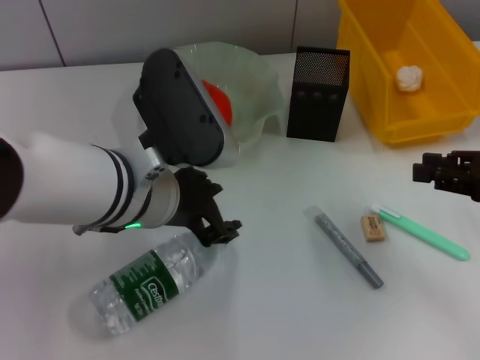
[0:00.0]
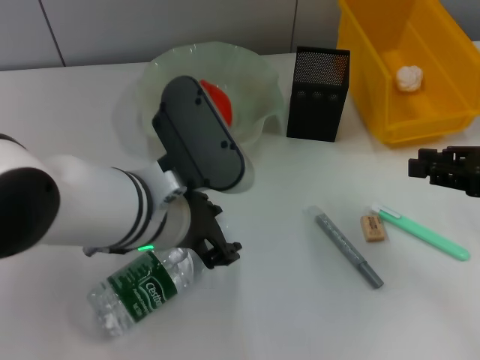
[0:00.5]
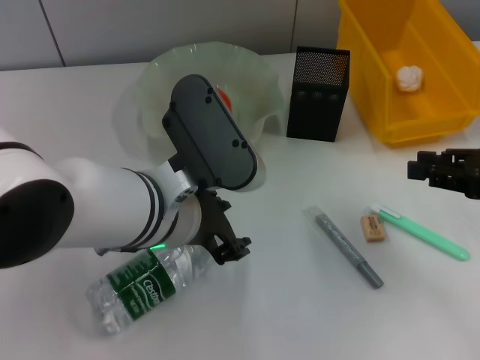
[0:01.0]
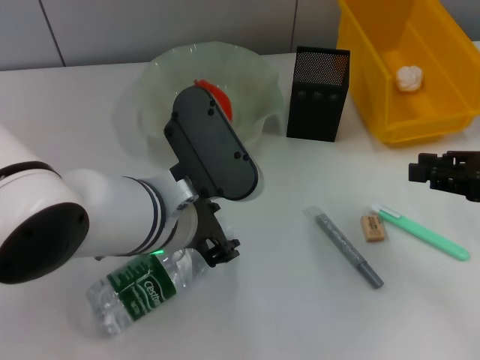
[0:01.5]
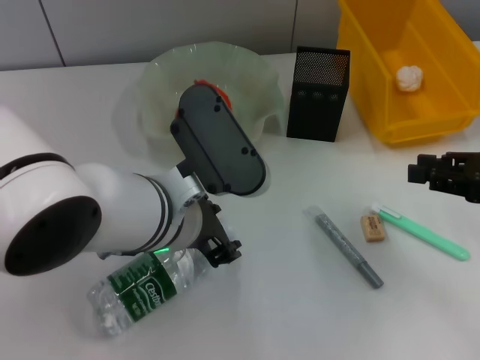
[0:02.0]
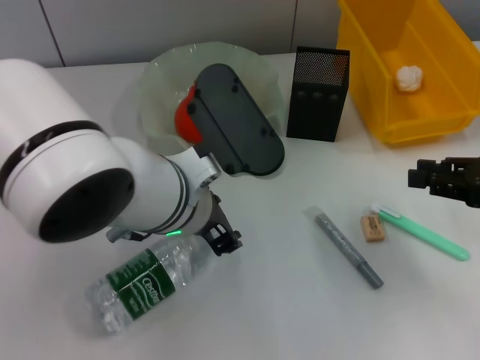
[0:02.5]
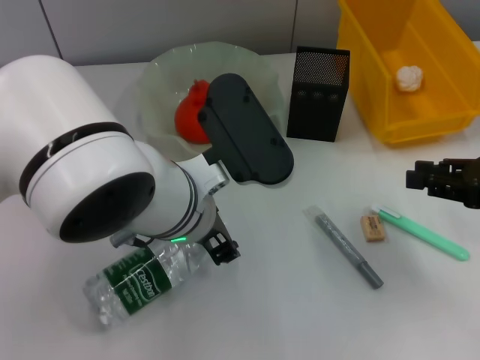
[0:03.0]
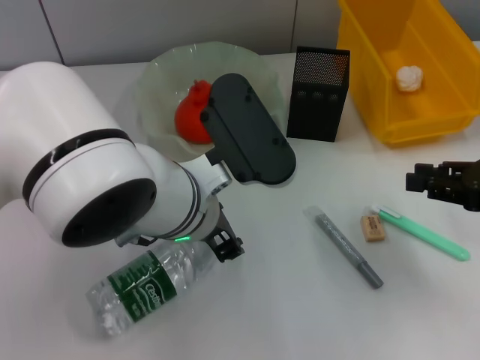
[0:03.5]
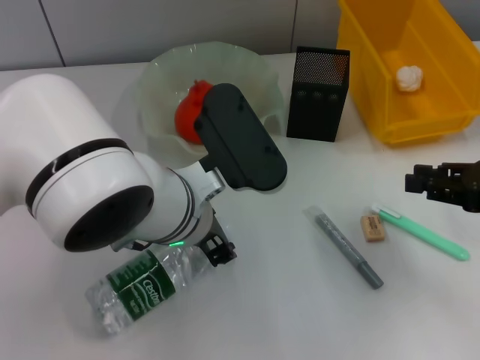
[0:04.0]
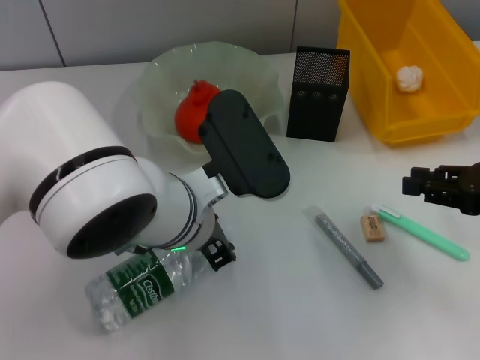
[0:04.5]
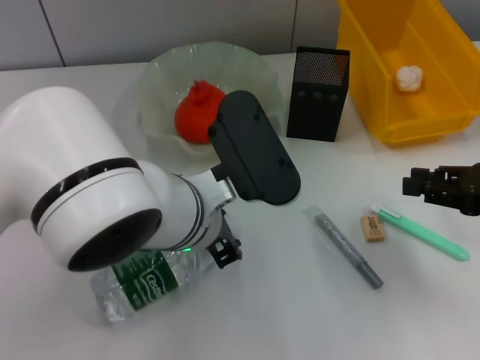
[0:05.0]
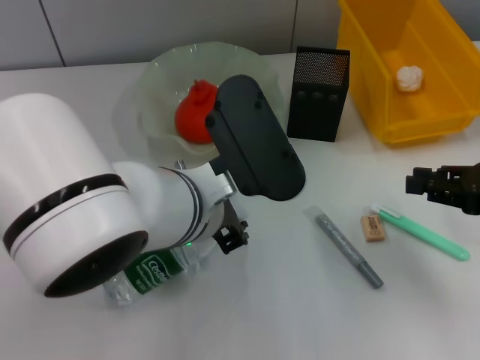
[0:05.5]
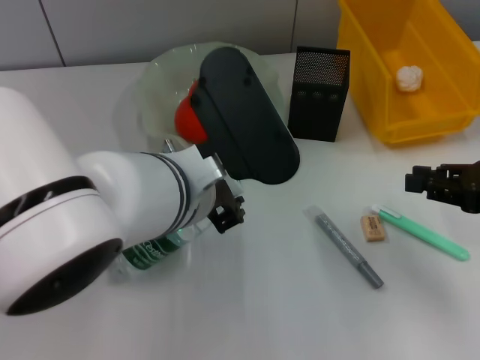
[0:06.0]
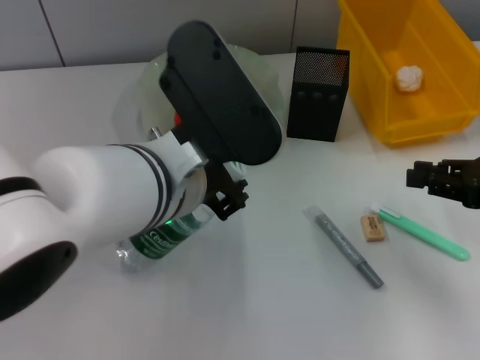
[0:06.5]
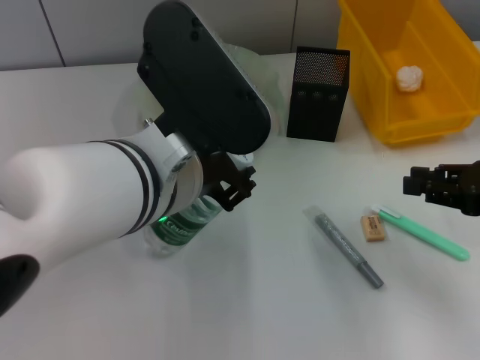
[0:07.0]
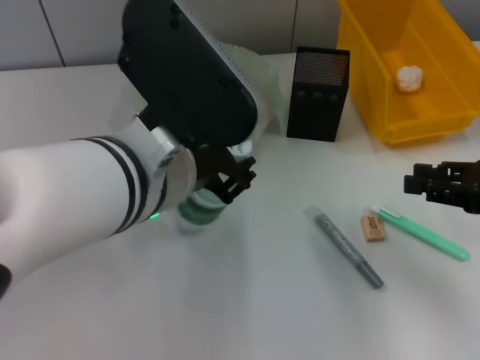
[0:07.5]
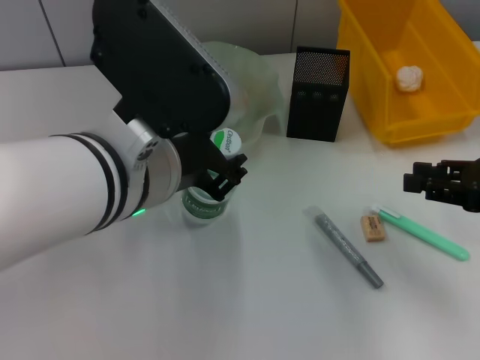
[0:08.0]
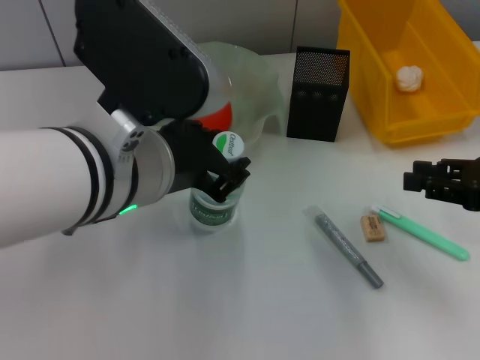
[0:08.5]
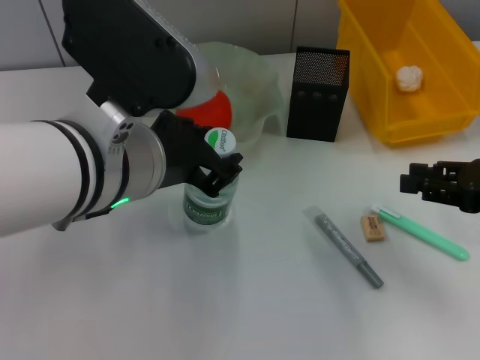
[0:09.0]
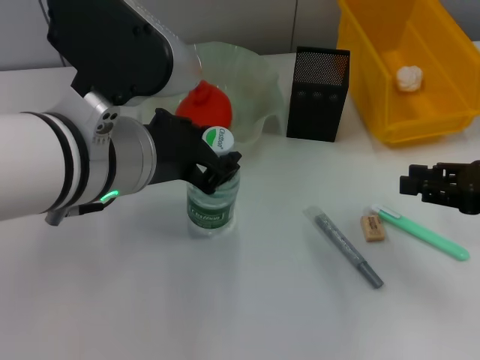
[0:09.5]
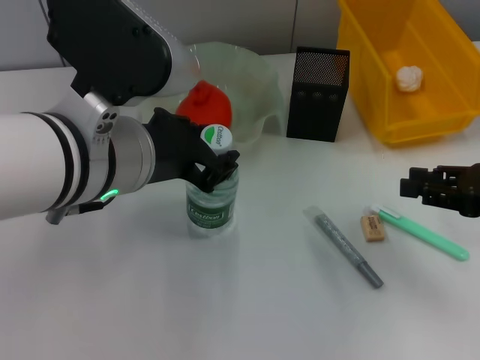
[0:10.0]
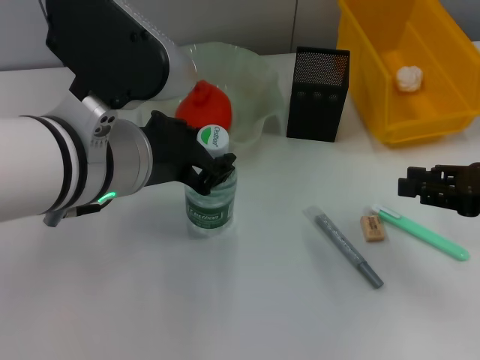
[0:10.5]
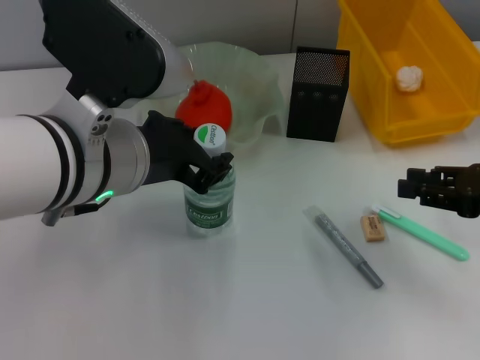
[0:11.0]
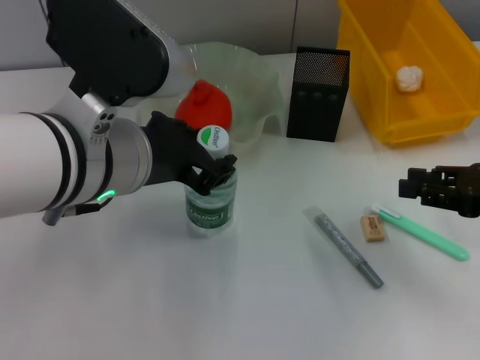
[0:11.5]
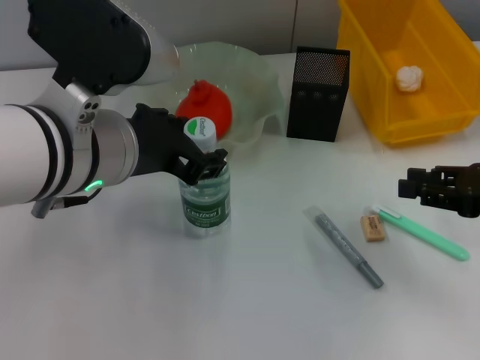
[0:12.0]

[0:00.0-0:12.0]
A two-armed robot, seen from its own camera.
Step, 0:00.0 to 0:04.5: Grab the water bottle with the left hand.
0:00.0 to 0:04.0: The grippers stay close to where they were, moving slightly.
0:06.0 to 0:08.0: The left gripper ends up approximately 5 cm from where it was.
0:08.0 to 0:10.0: There are only small adjustments of the grippers.
0:10.0 to 0:12.0: Neither gripper changes place.

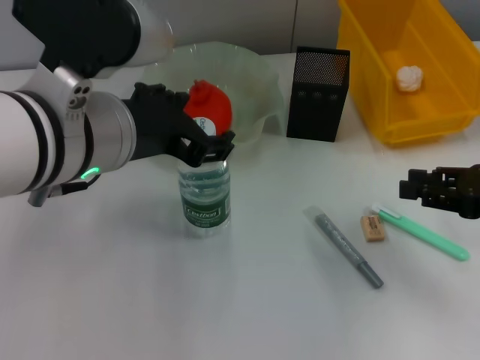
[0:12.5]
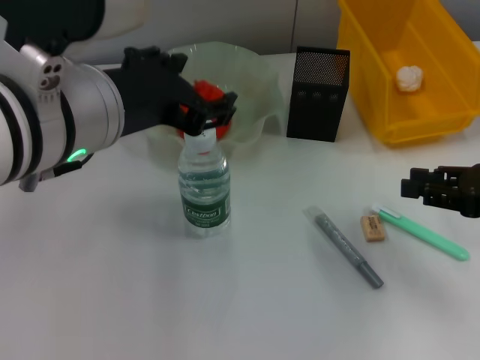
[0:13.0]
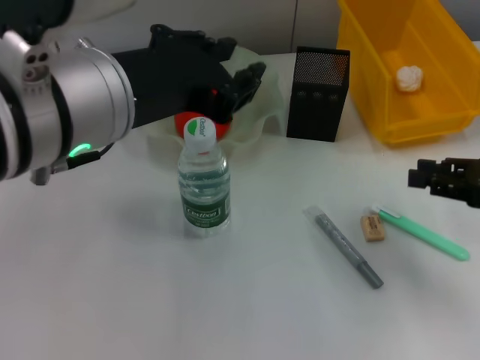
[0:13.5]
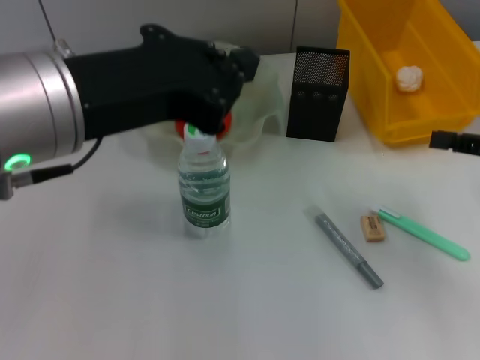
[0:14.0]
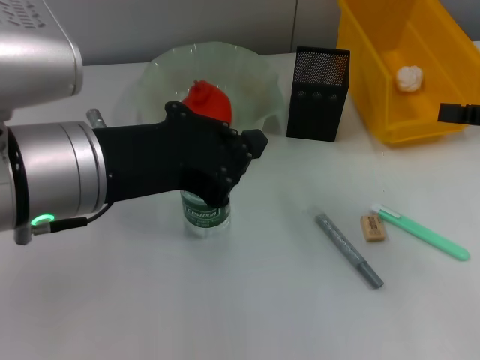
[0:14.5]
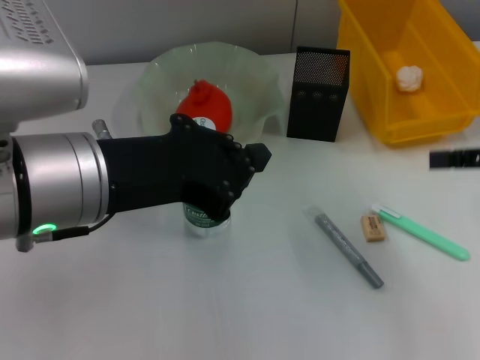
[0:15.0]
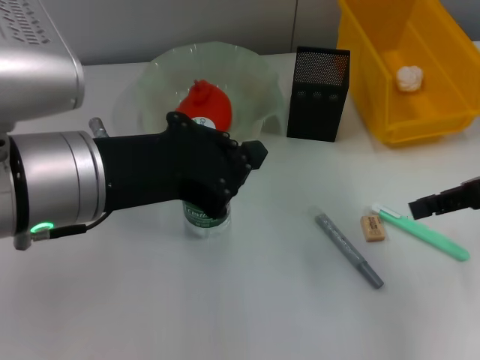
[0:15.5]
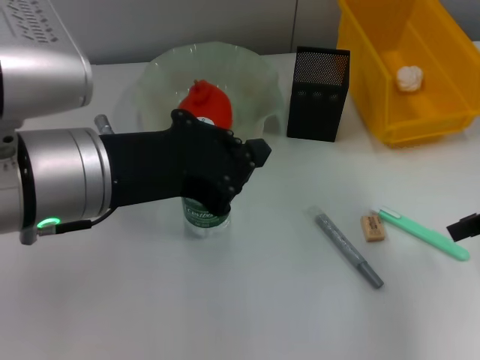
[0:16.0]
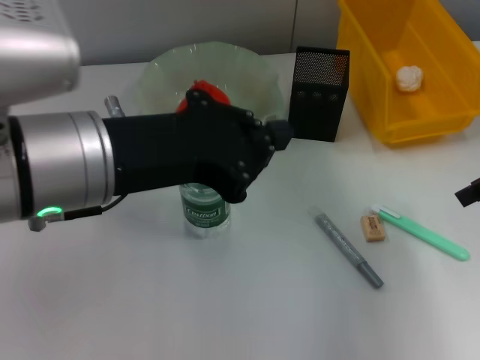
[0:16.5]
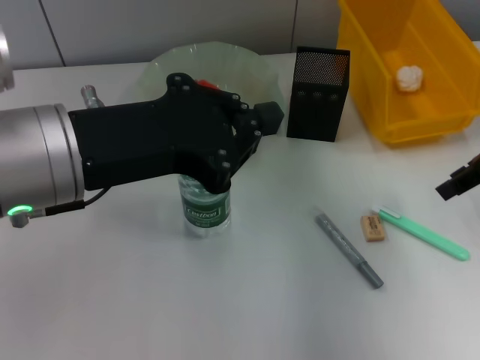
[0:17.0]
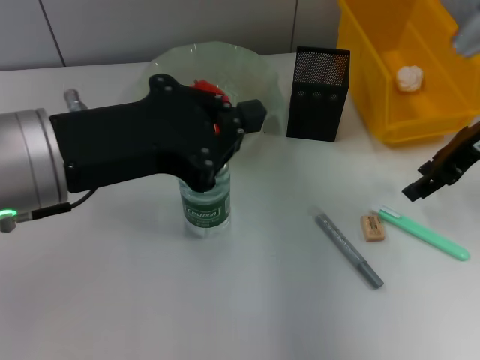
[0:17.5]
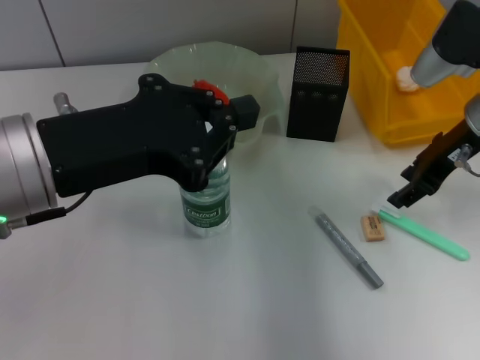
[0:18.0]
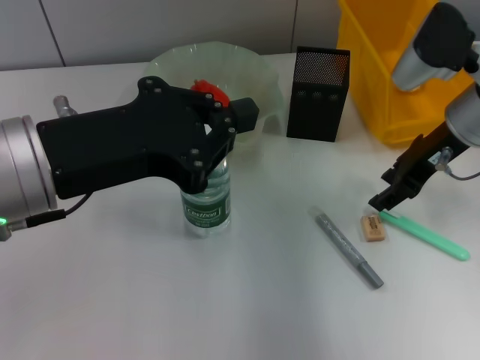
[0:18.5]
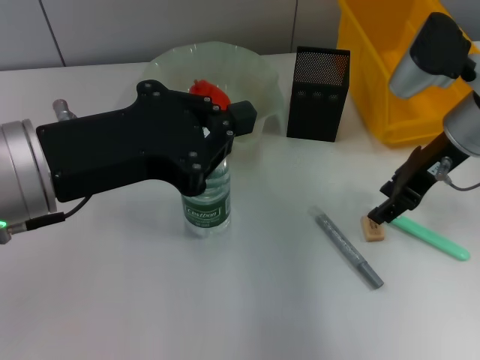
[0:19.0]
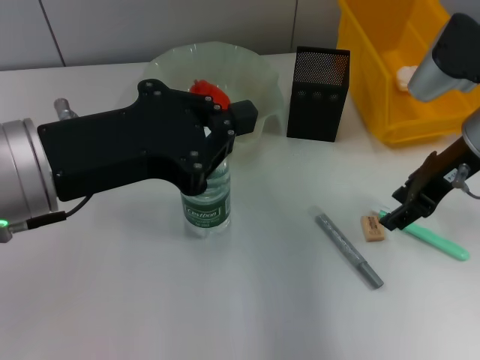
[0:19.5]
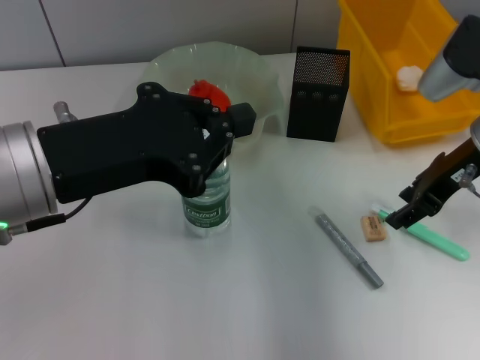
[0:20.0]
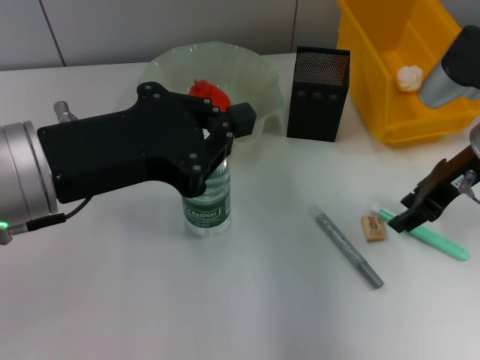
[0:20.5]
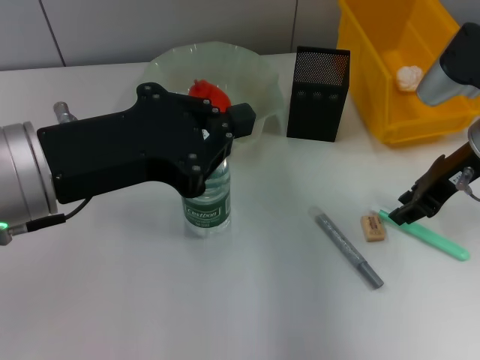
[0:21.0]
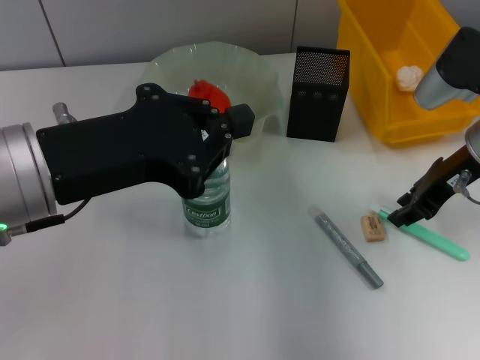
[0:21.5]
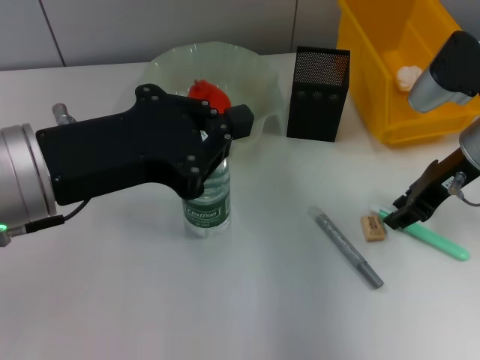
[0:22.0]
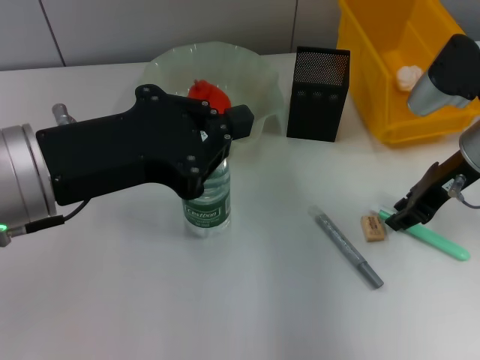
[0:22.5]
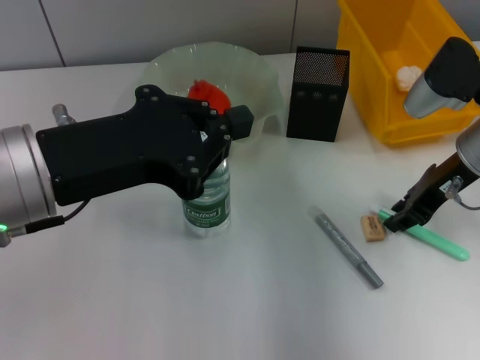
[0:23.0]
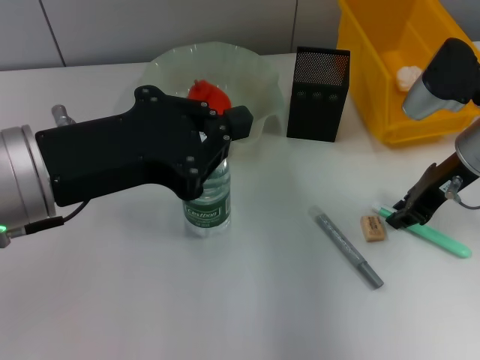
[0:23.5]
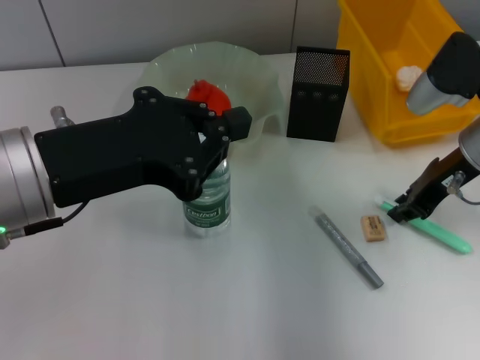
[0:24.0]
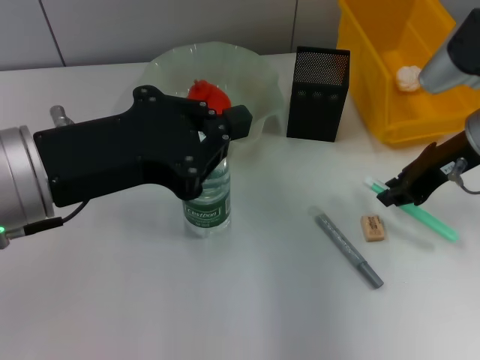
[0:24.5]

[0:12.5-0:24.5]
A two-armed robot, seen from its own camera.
Step, 0:12.5 to 0:23.0: Grab the blue utility knife with the right hand.
0:12.5 to 0:14.5: The left gripper closes up. Meanwhile the right gripper moves upward, about 5 cm.
0:14.5 to 0:16.5: The right gripper moves some 5 cm.
0:16.5 to 0:18.5: The right gripper travels to the left and forward by some 10 cm.
0:18.5 to 0:20.5: The grippers move only a little.
0:20.5 to 0:22.5: The two grippers keep their place.
0:22.5 to 0:24.5: The grippers move only a little.

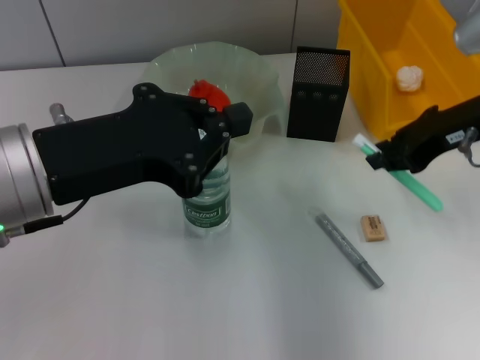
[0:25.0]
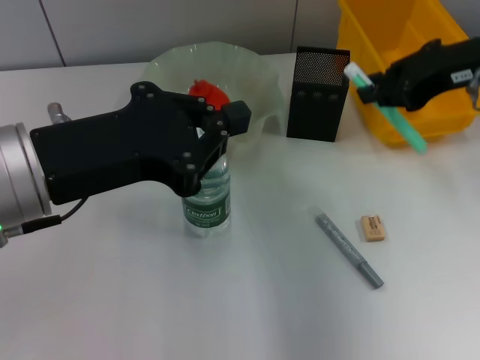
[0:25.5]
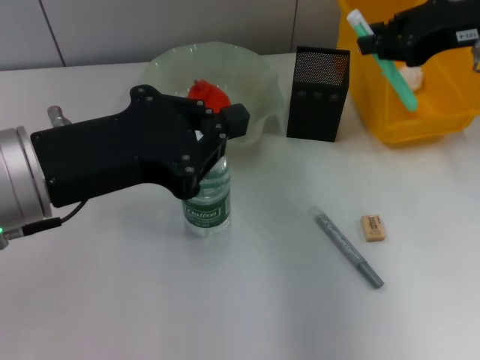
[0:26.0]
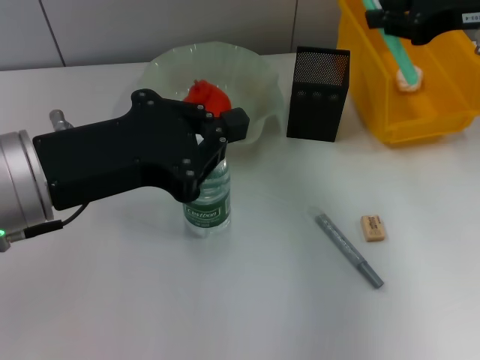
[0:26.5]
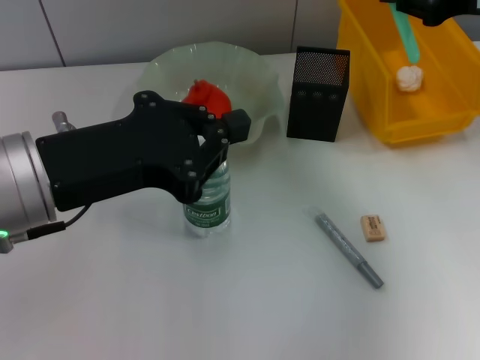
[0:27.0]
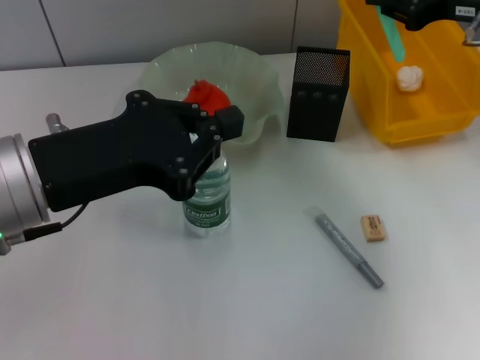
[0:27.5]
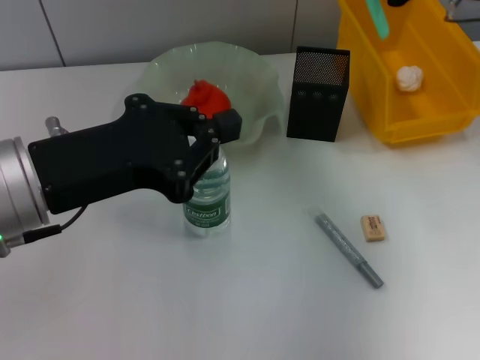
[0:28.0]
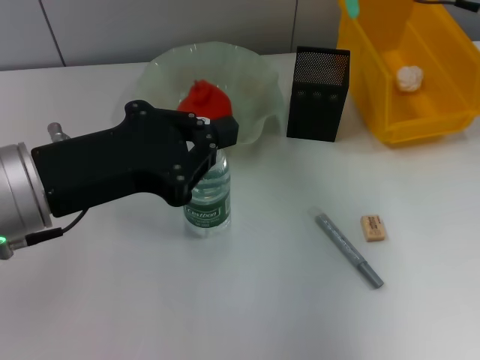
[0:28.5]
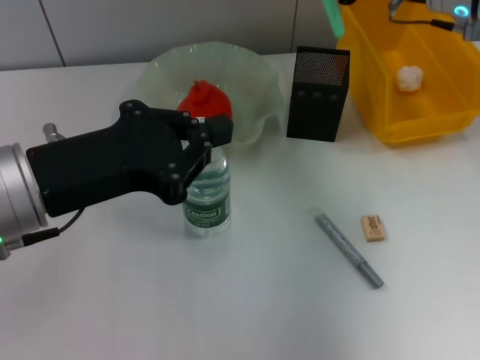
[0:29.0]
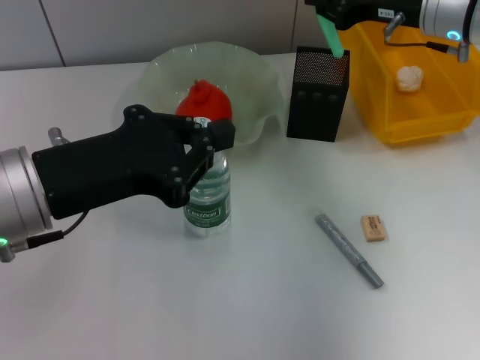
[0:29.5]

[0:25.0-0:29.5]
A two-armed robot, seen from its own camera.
0:25.0 to 0:27.0: The right gripper moves some 5 cm.
0:27.0 to 0:29.5: The right gripper is displaced to the left, forward and downward by roughly 10 cm.
